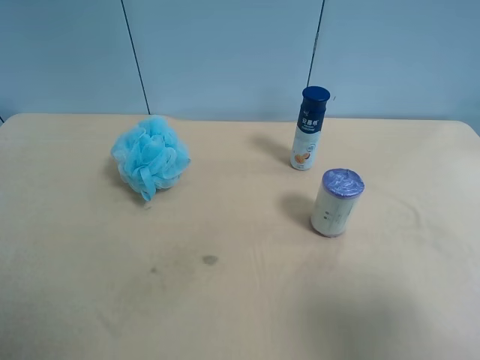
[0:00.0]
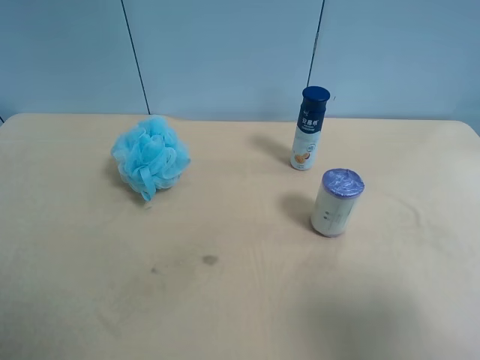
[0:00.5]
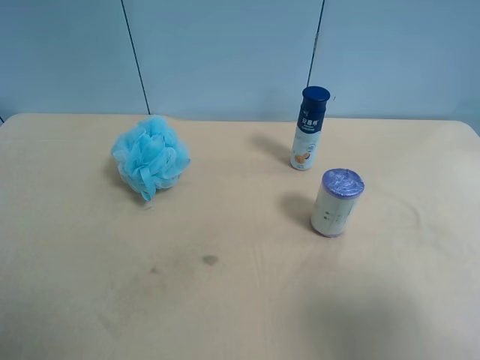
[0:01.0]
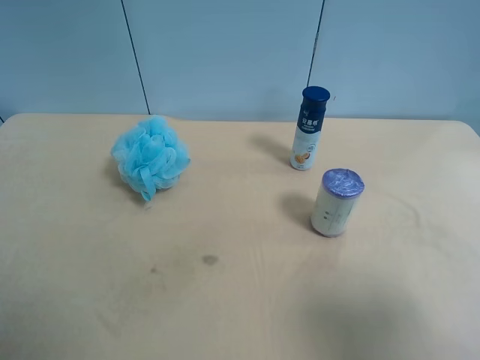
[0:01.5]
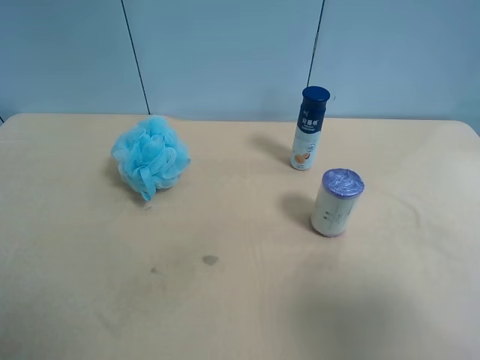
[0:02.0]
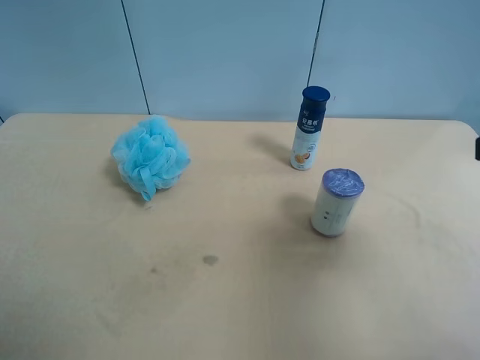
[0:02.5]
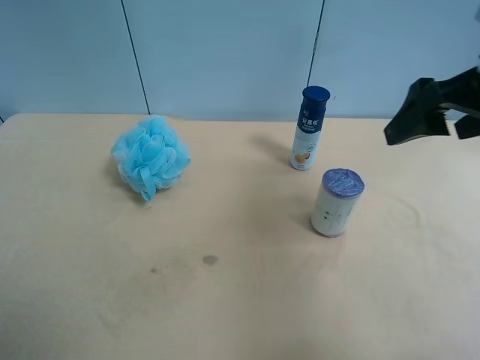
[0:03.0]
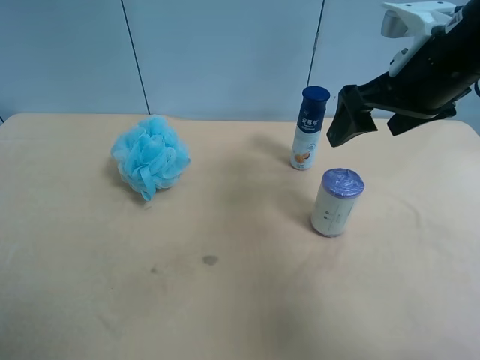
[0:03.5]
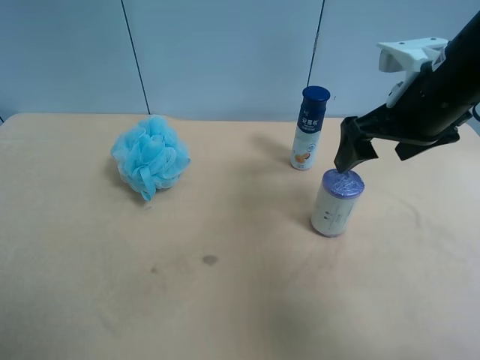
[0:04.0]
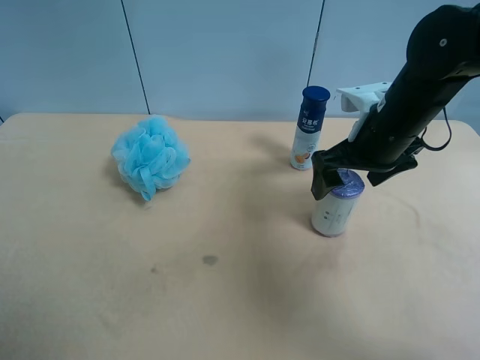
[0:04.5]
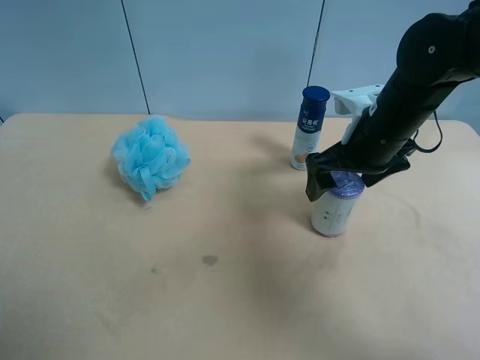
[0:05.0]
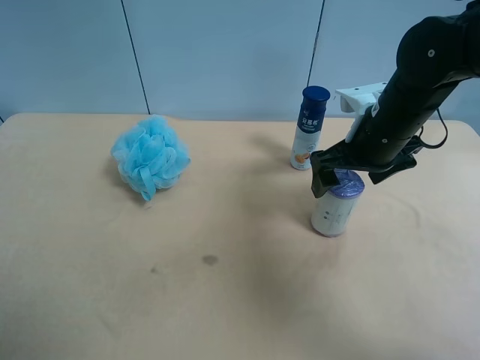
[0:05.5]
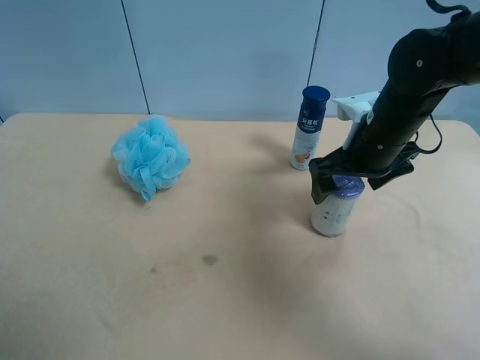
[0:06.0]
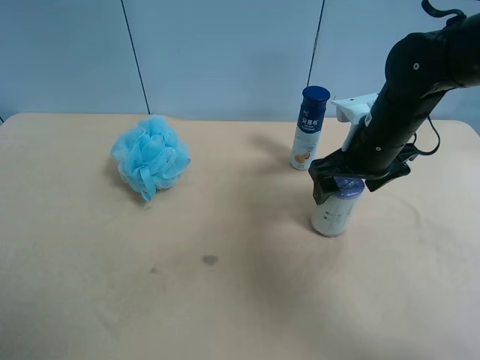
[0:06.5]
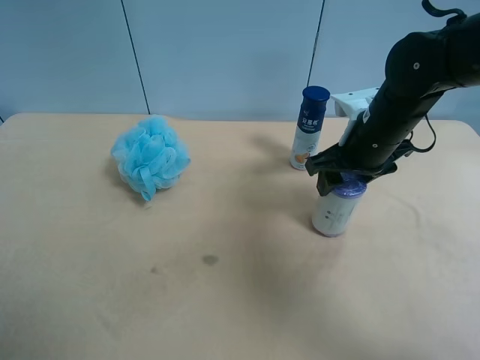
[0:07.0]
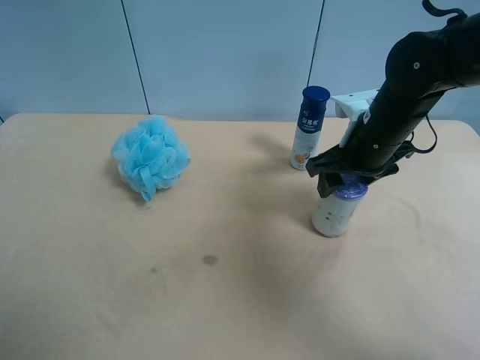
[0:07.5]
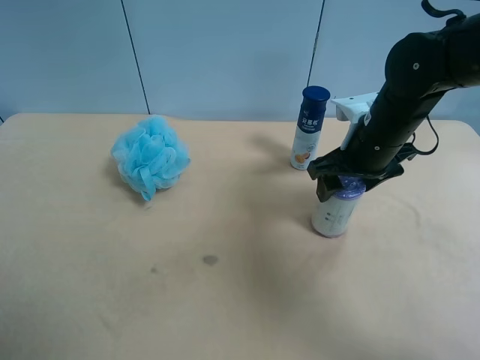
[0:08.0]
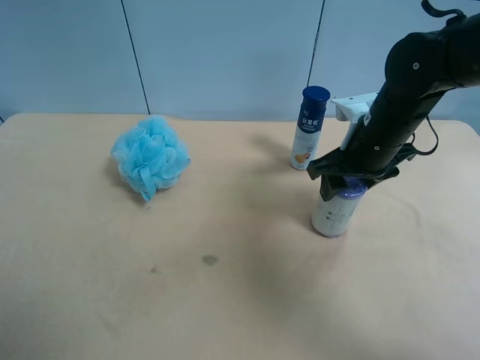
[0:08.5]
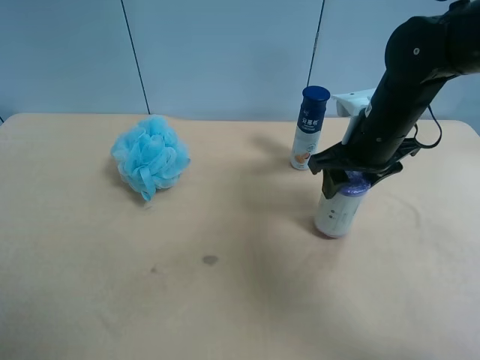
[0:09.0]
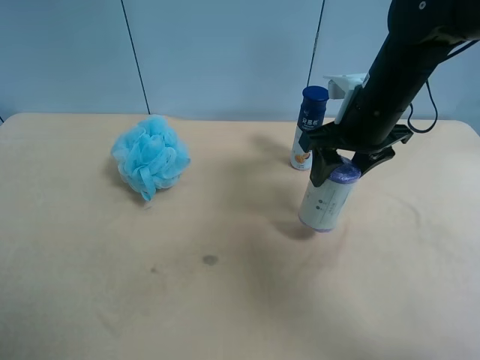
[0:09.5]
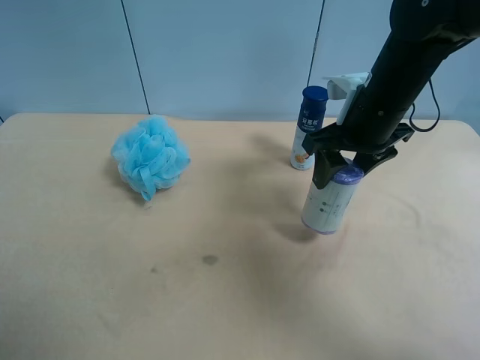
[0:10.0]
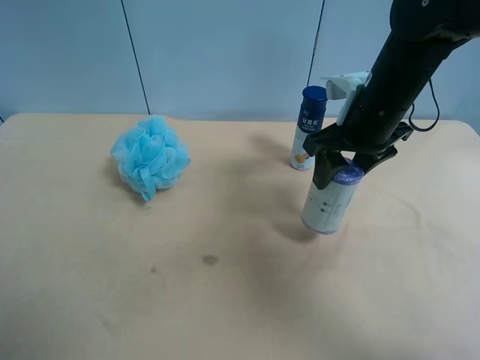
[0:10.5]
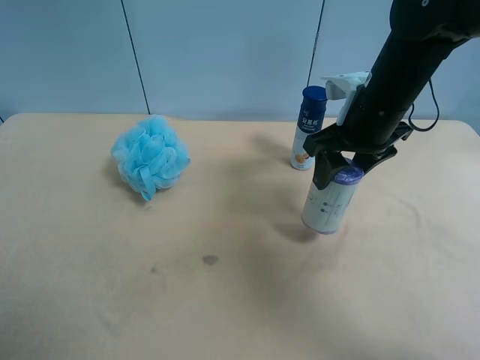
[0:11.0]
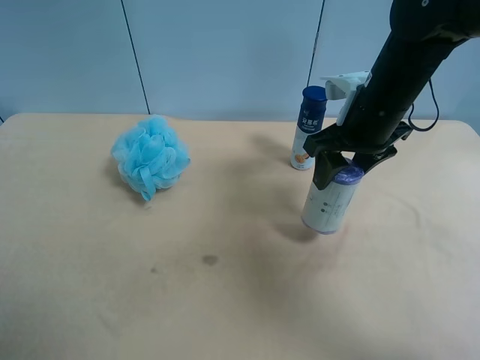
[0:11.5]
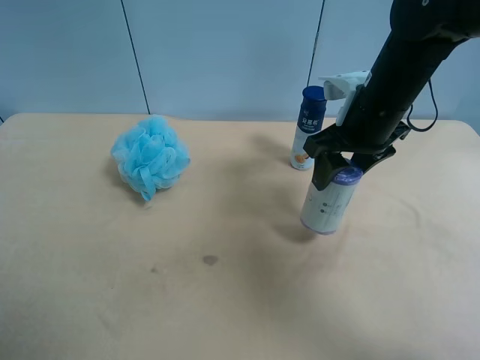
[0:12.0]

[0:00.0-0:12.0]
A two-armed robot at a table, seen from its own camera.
Task of the whole recording: use the right gripper to pick up the item and transfer it from the right gripper to the left gripper.
0:02.0 to 0:04.0: The right gripper travels forward by some 25 cm.
0:04.0 to 0:06.0: The right gripper travels downward by some 5 cm.
0:06.0 to 0:08.0: The right gripper closes.
0:08.0 to 0:10.0: The grippers make only small movements.

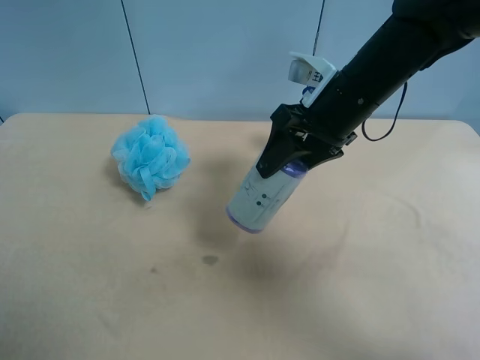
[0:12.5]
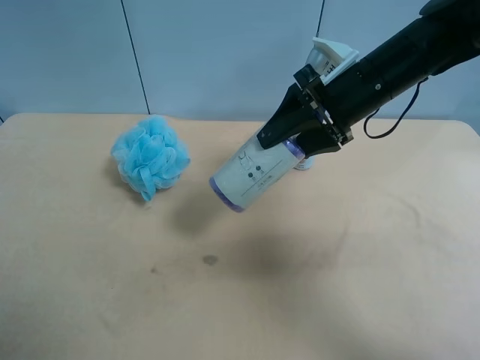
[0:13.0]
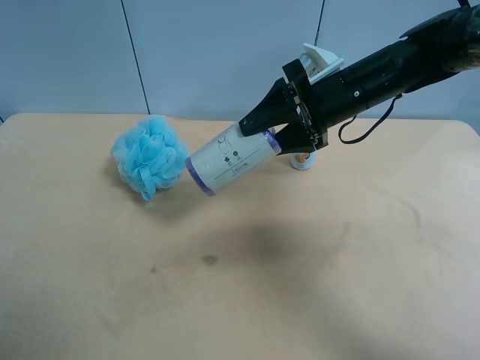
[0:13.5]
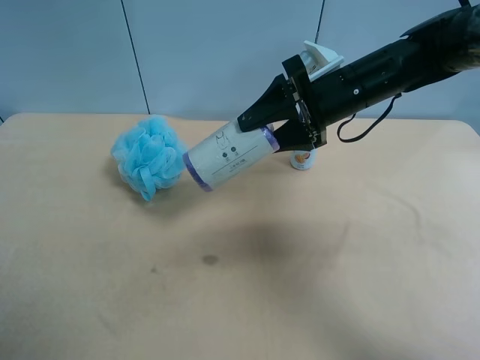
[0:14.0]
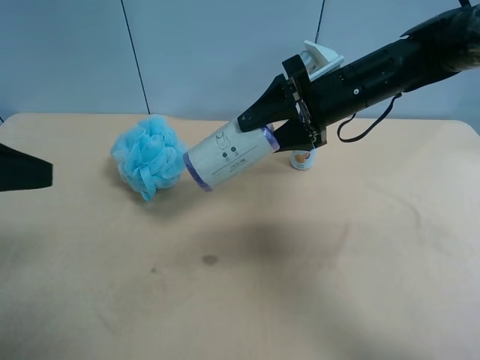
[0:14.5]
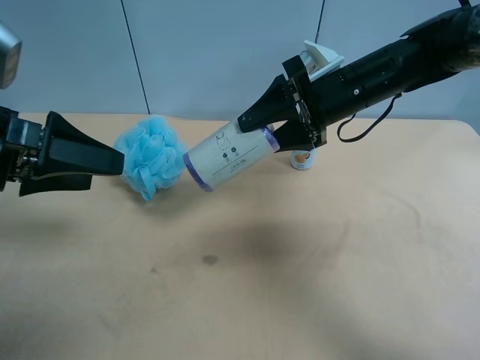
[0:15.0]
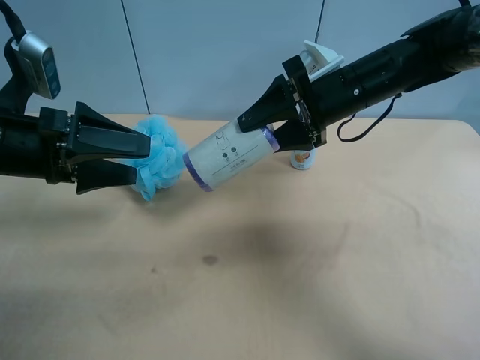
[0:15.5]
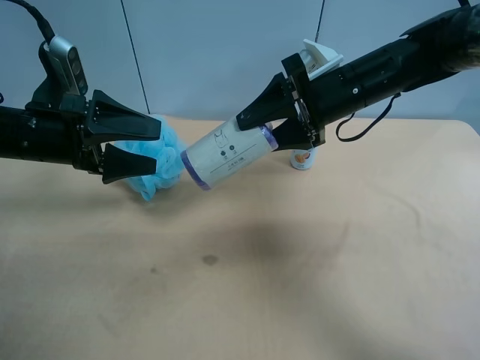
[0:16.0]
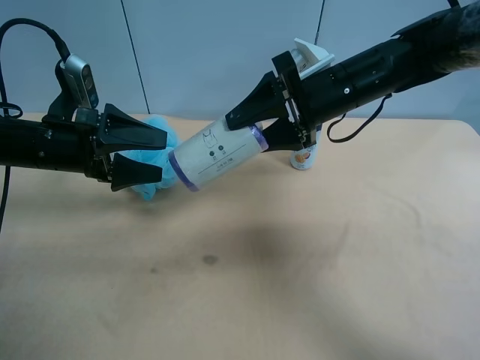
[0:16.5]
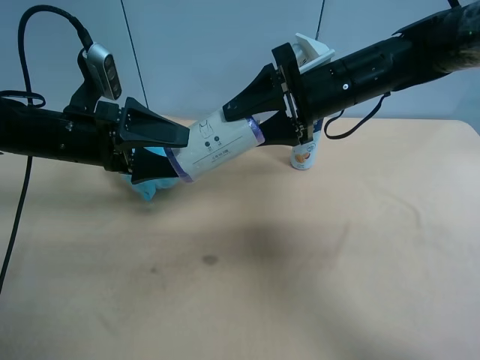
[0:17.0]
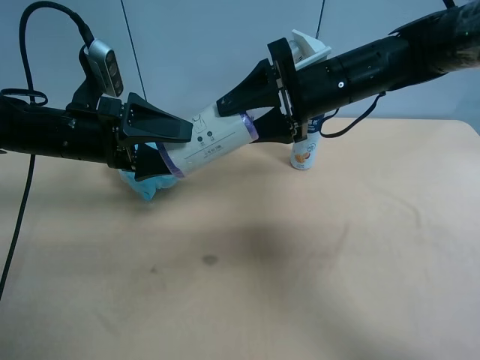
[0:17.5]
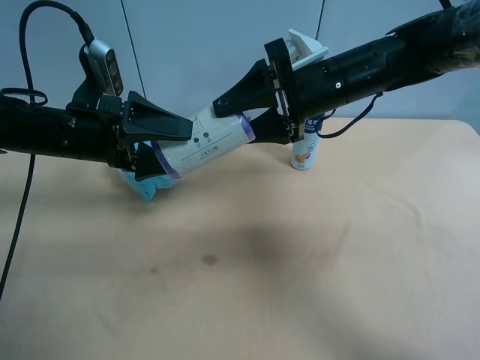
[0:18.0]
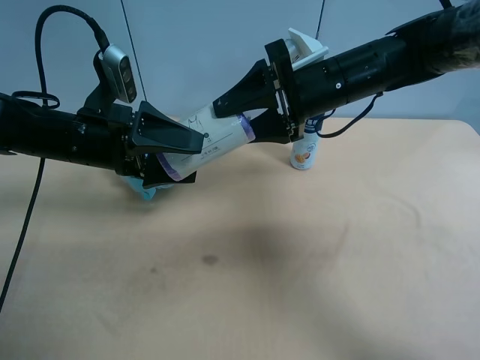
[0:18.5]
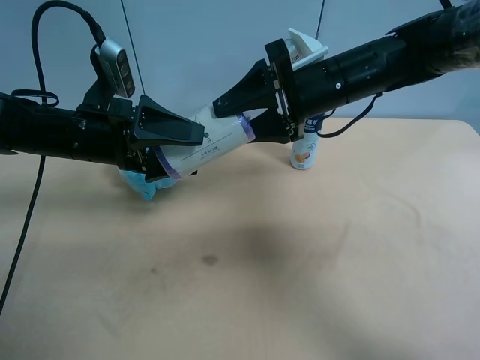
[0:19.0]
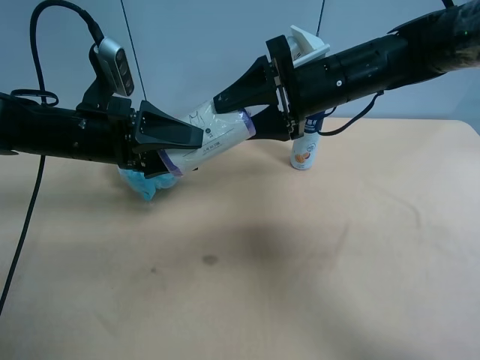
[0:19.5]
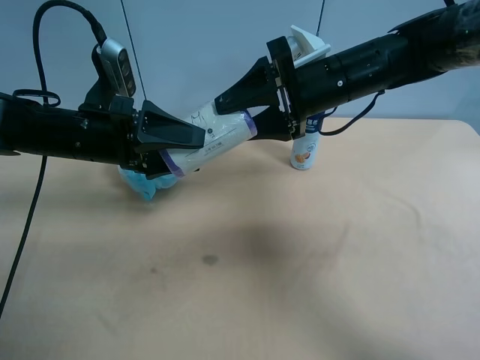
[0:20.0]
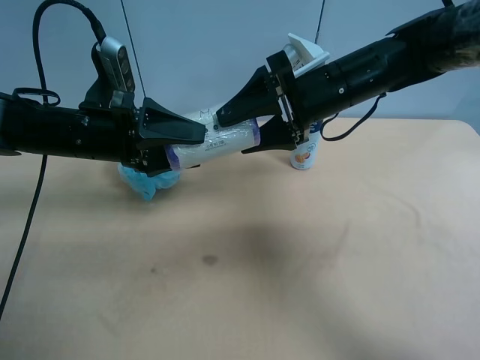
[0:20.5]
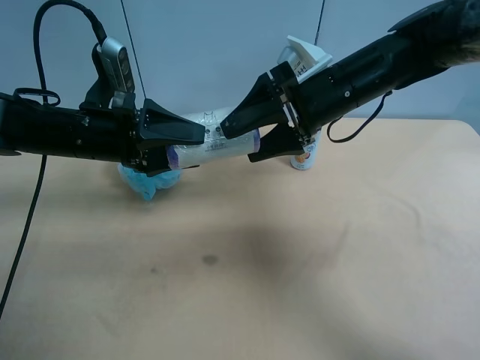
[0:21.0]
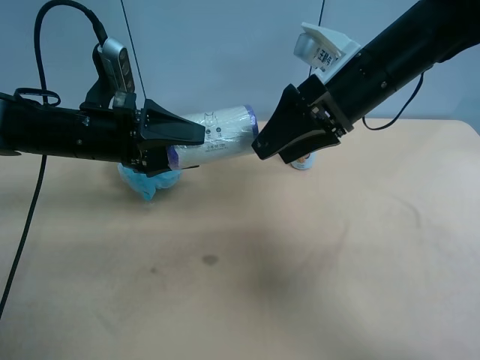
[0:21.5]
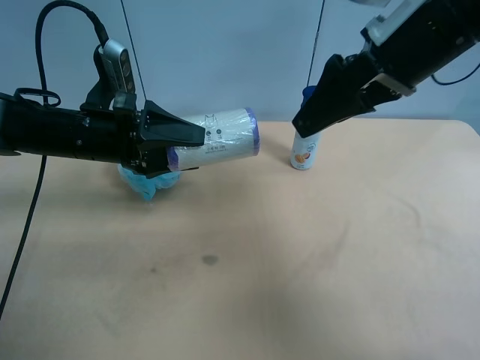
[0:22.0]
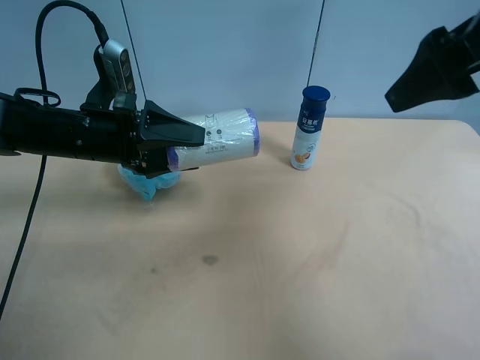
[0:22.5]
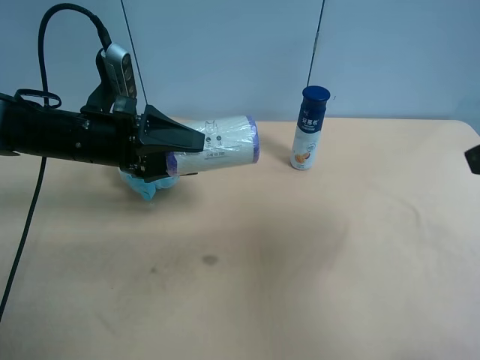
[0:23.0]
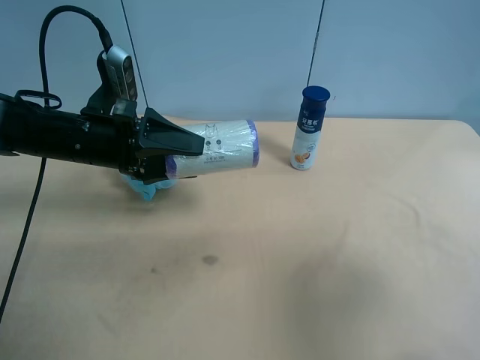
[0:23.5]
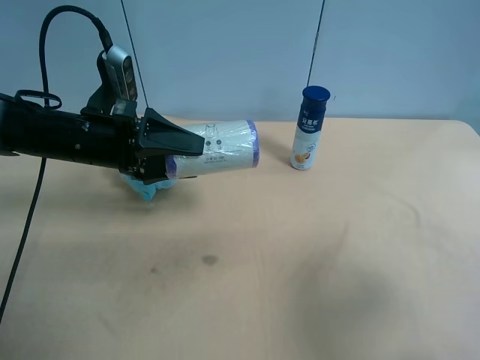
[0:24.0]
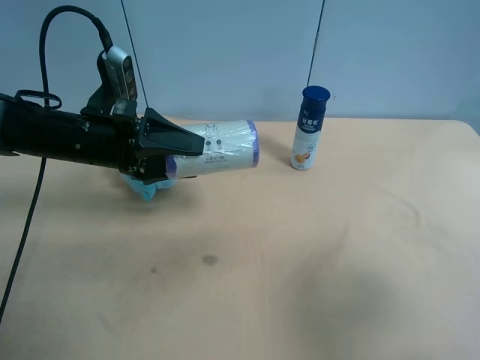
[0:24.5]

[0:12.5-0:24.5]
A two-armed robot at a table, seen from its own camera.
Task of the whole recording: use the right gripper to pick up the item and transfer it from the right gripper to the left gripper.
0:12.5 to 0:14.5: The left gripper moves forward, some 10 cm.
0:14.5 to 0:16.5: The left gripper goes approximately 20 cm forward and downward.
0:16.5 to 0:18.5: There are only small adjustments of the grippers.
0:18.5 to 0:20.5: The left gripper closes up.
0:20.5 to 0:22.5: The right gripper travels upward, backward and to the right by some 20 cm, and opens its fingers.
0:22.5 to 0:24.5: The right gripper is displaced backward and downward by some 20 cm.

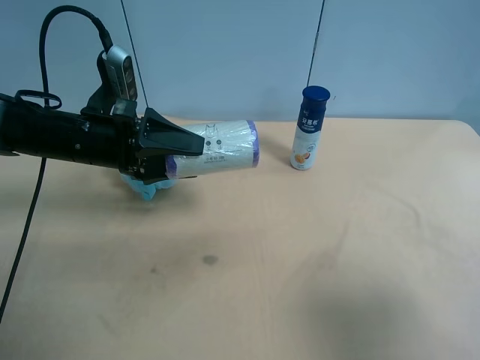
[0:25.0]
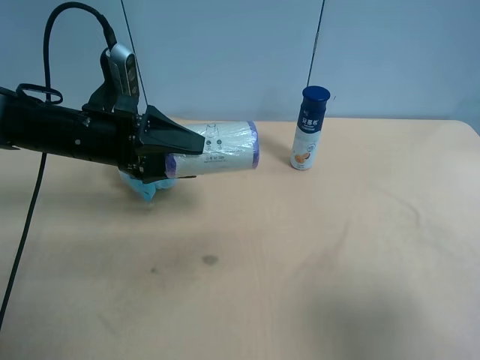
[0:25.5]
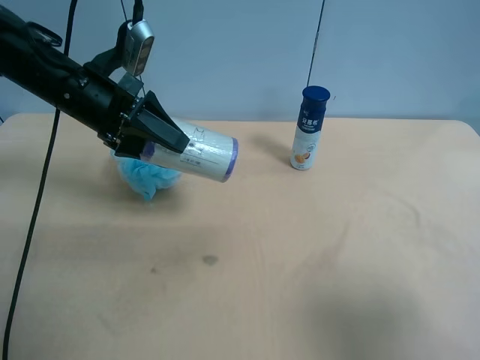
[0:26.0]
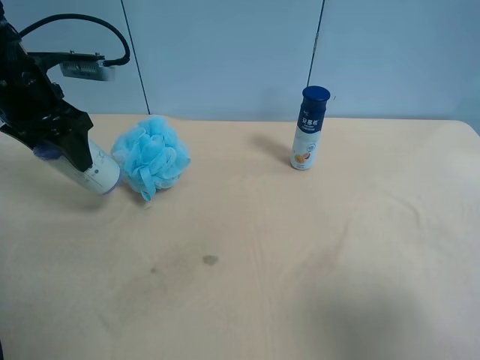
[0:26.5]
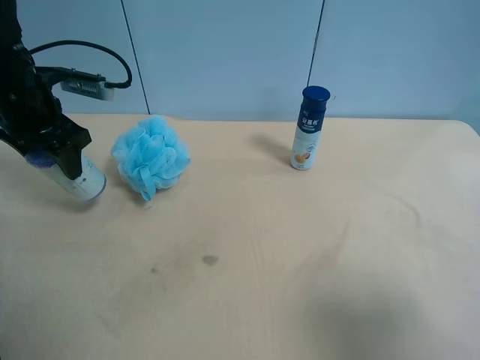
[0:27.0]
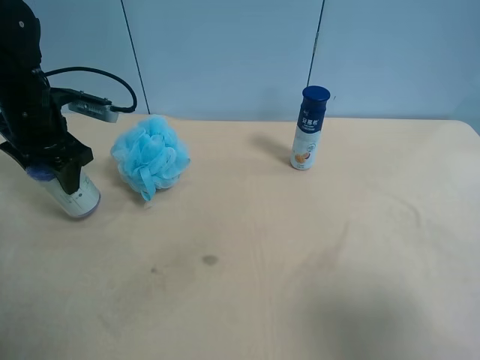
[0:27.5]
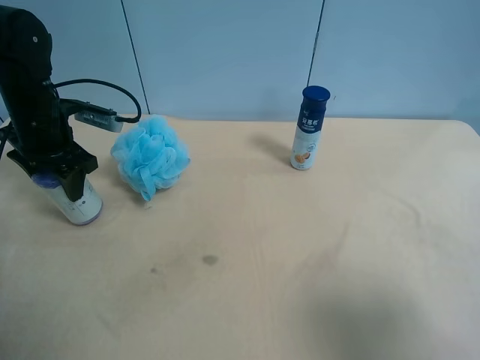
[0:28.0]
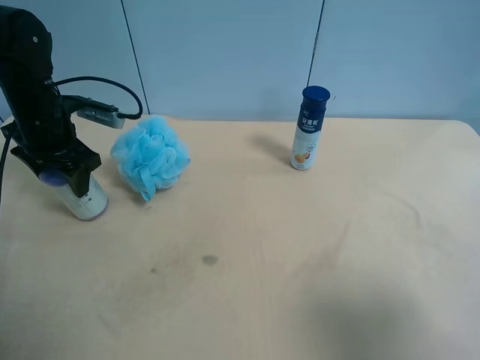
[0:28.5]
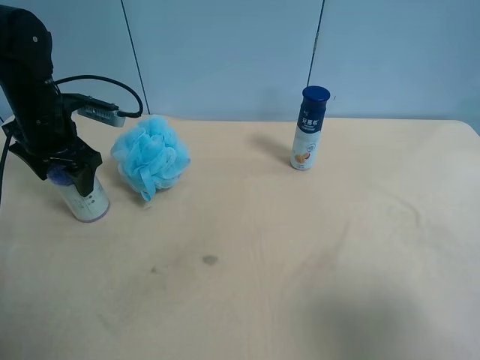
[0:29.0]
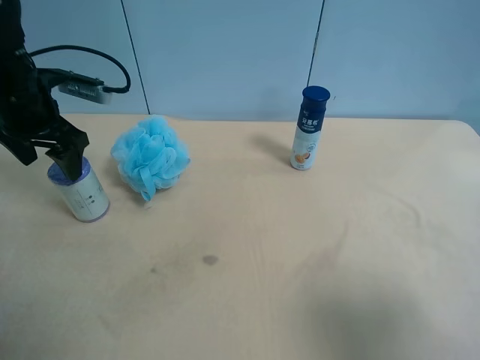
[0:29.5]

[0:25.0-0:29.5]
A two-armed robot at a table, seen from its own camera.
Task of the whole recording: use the right gripper to pick up the item and transfer it from the right gripper to the left gripper.
0:25.0 to 0:27.0: The left gripper goes about 10 cm to the left and forward.
0:27.0 to 0:29.5: The left gripper opens.
